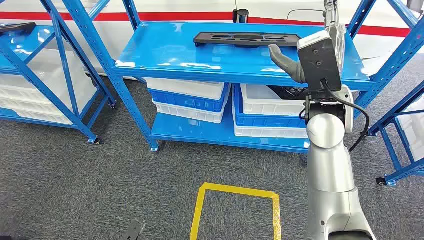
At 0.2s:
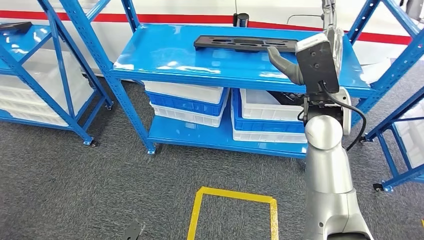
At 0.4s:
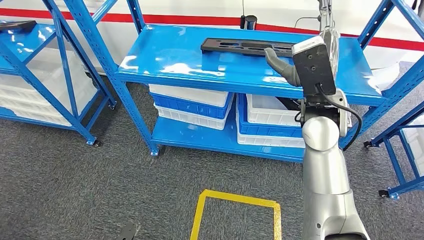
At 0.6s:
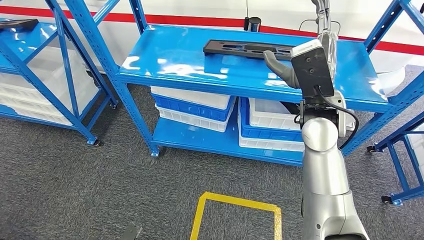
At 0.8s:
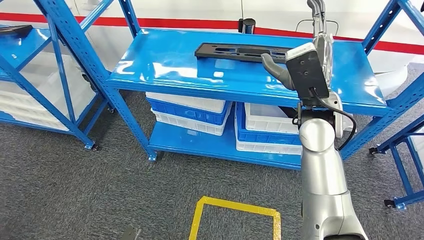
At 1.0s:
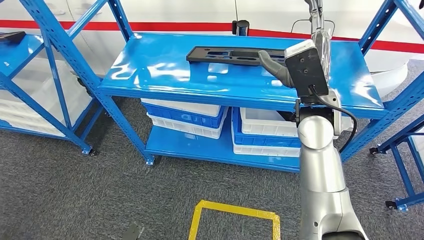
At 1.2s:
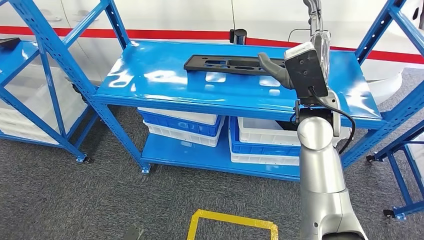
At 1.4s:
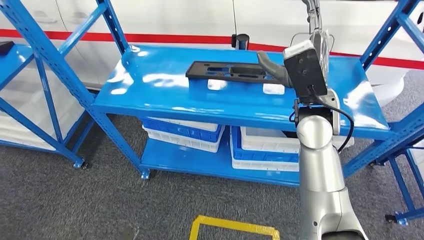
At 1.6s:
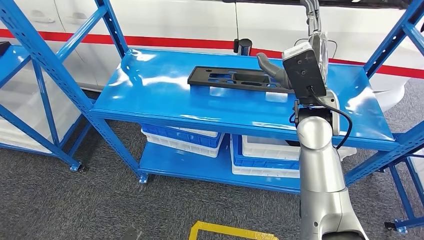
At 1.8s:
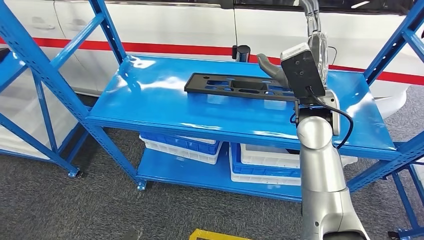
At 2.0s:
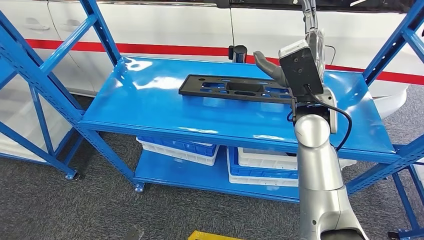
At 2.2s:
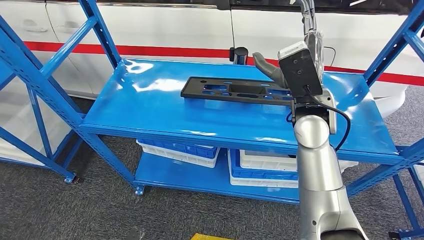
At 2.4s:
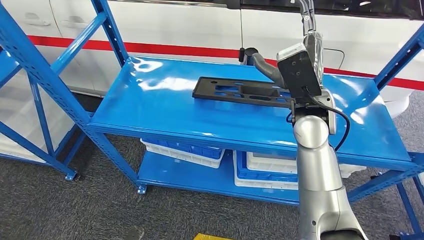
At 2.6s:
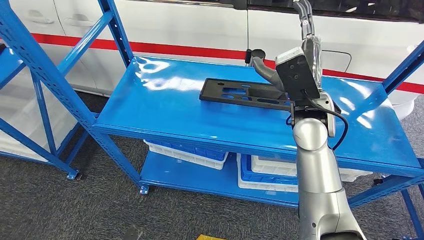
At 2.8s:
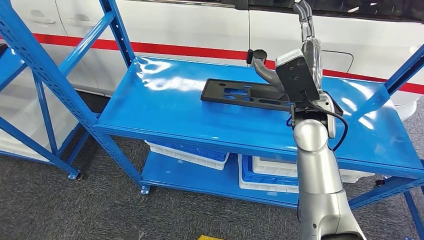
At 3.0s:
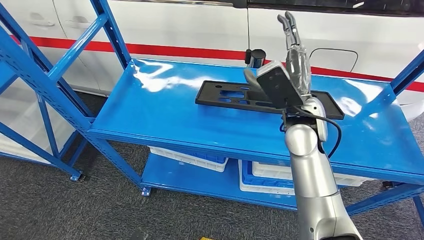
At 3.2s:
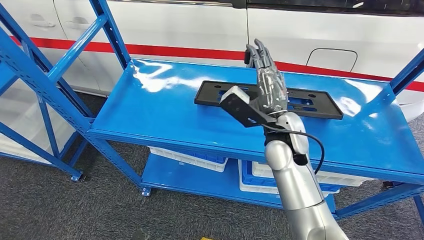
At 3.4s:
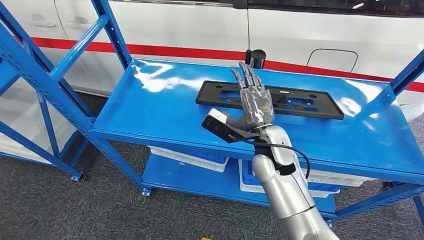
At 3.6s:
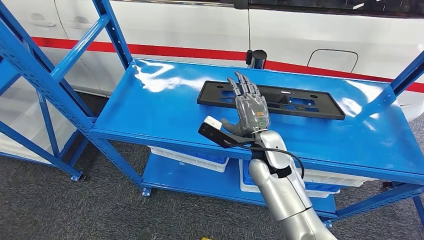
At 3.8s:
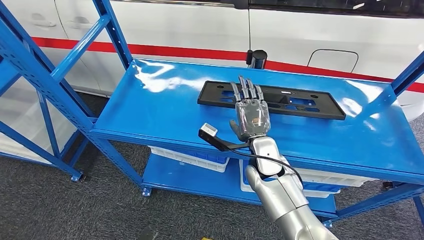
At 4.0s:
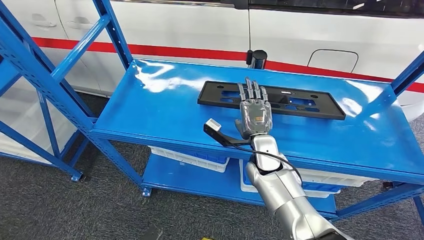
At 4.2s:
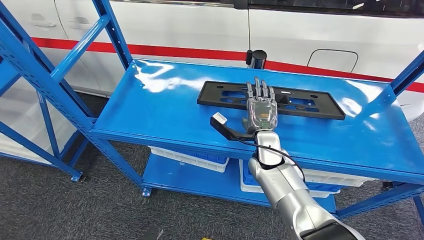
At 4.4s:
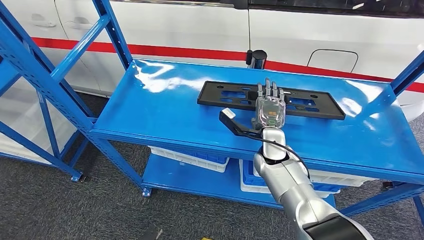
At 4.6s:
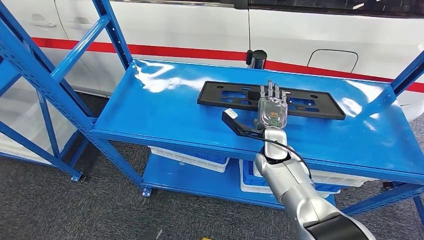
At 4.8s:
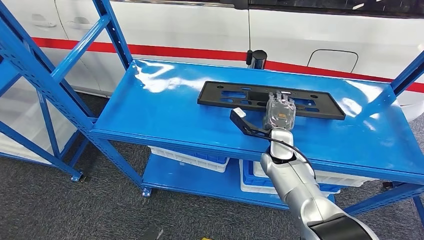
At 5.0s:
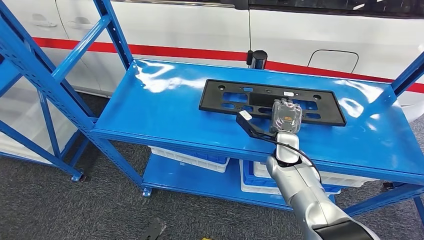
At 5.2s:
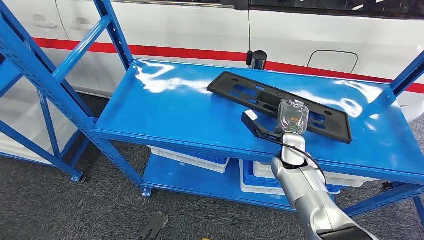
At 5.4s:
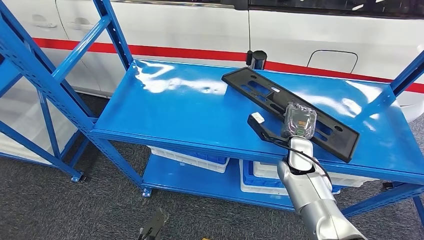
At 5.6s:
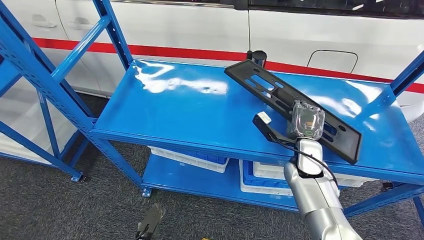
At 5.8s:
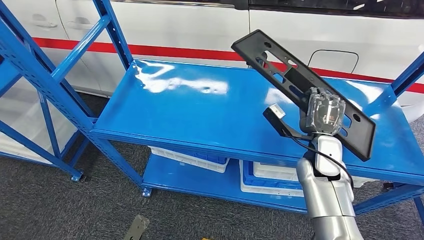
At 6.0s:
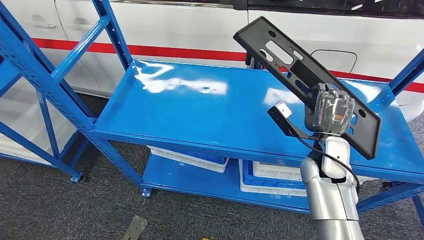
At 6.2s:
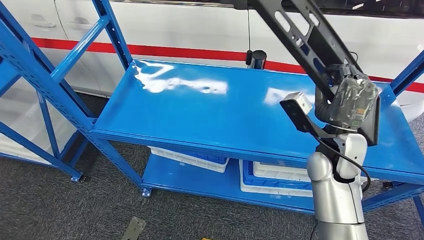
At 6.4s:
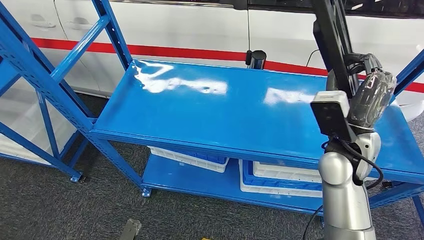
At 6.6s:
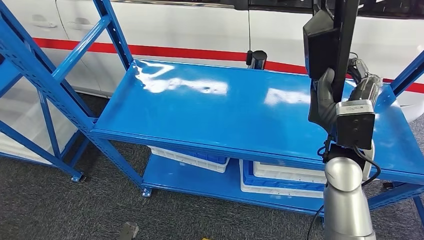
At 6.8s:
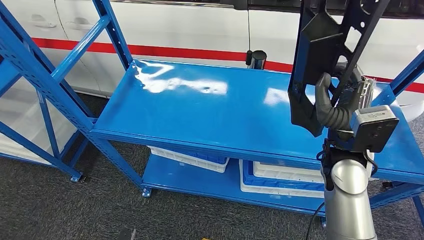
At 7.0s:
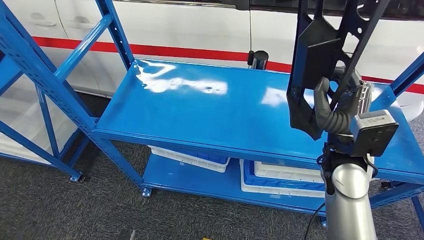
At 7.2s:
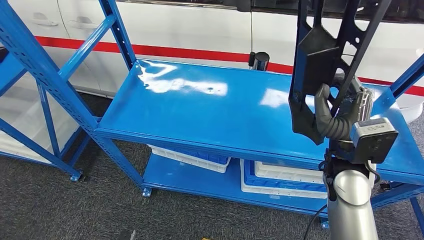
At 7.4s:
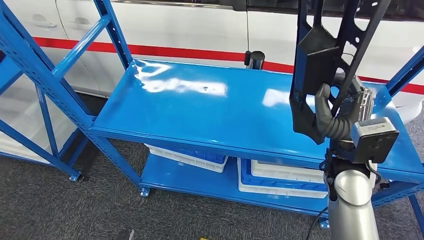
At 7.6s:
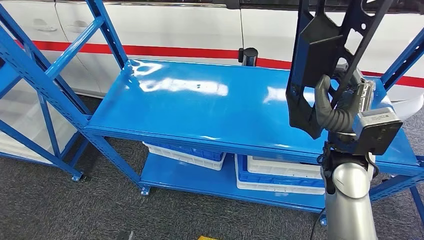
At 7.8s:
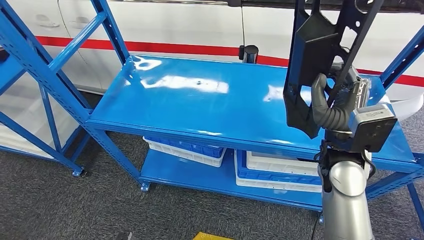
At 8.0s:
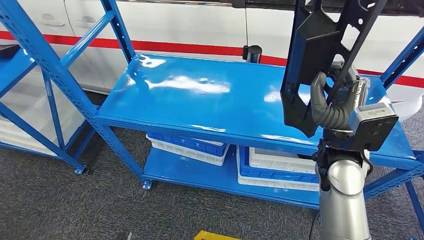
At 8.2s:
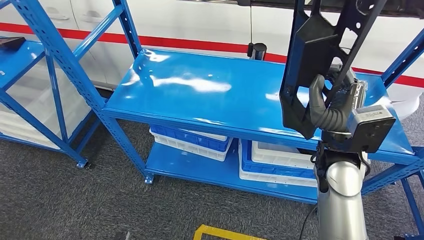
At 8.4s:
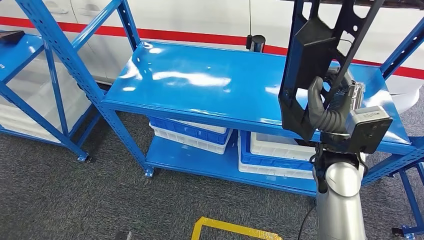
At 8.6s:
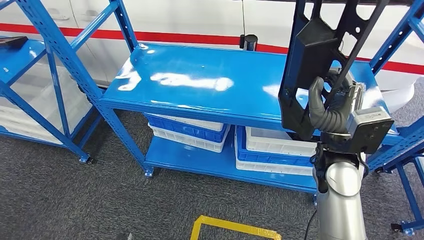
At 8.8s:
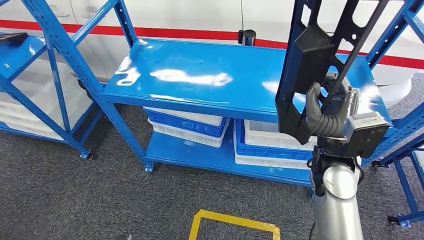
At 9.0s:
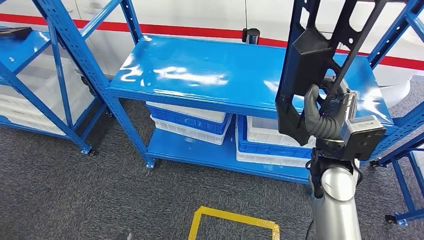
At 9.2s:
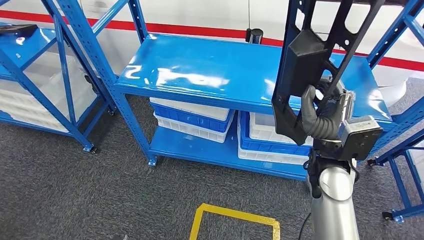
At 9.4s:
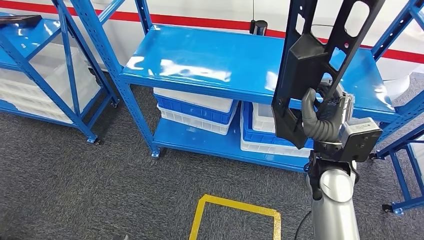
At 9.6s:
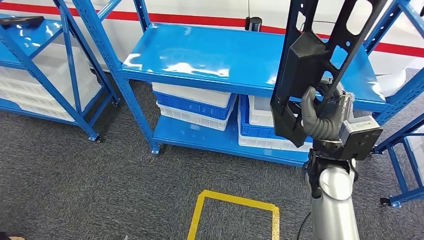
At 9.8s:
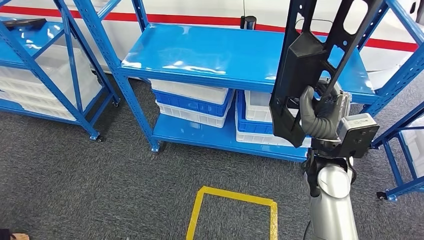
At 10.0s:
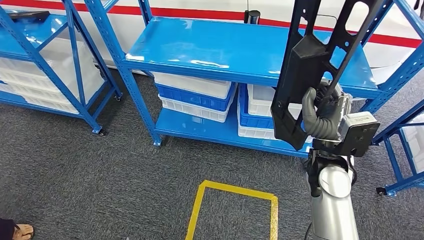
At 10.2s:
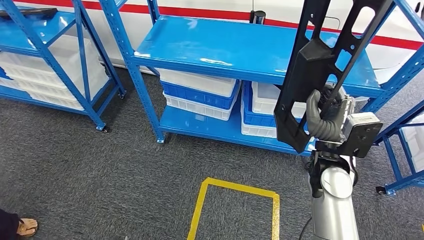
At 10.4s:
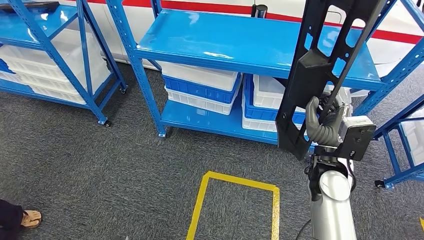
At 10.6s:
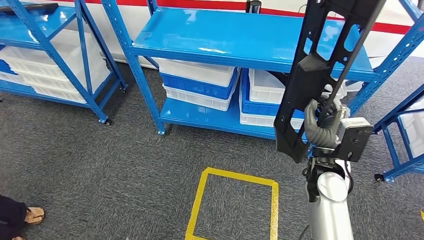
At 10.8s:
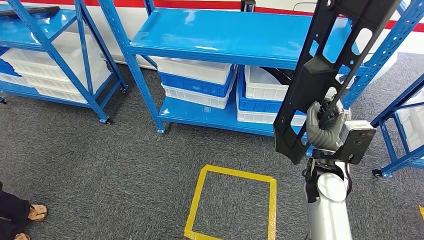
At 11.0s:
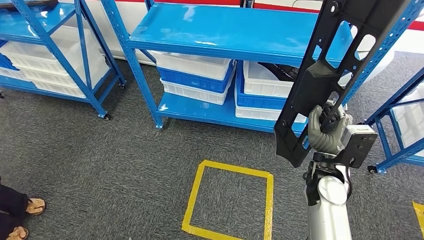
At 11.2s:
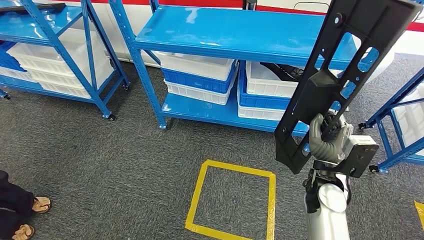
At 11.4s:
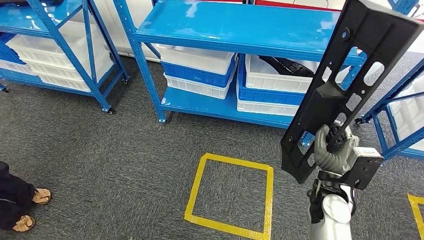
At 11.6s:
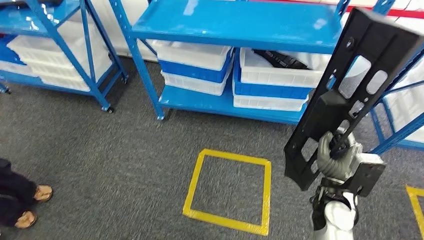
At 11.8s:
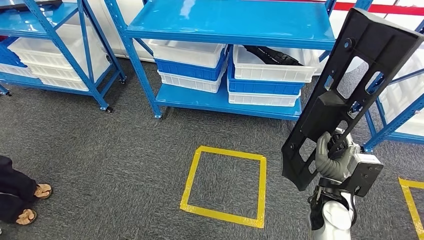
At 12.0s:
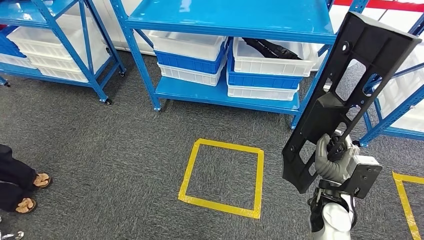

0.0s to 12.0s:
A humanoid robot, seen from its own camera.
Step, 0.0s to 10.2s: Pick up the large material from the shelf.
3.0s to 4.4s: The right hand is displaced downward by roughly 15 cm. Meanwhile the left hand is displaced to the right by roughly 5 cm.

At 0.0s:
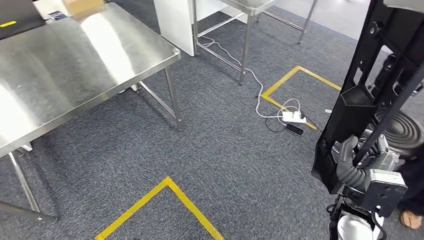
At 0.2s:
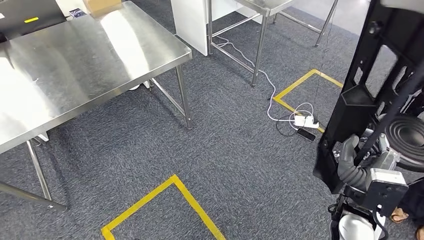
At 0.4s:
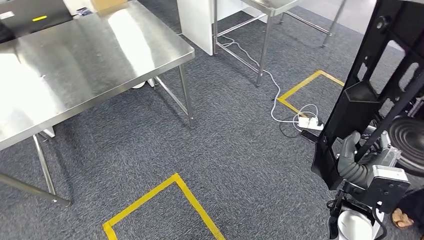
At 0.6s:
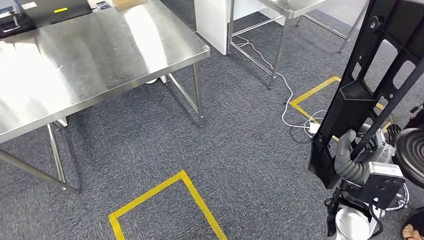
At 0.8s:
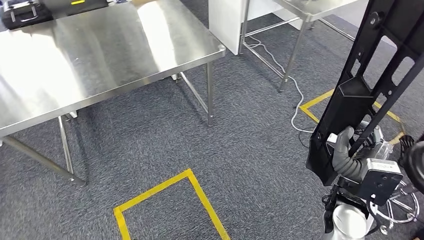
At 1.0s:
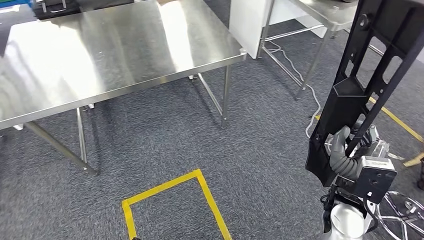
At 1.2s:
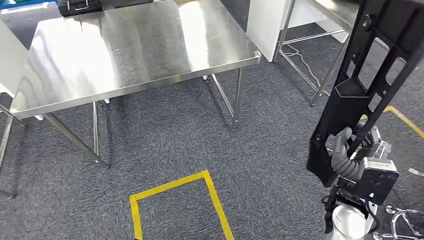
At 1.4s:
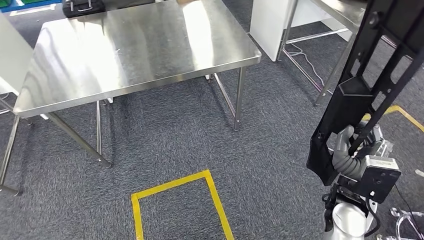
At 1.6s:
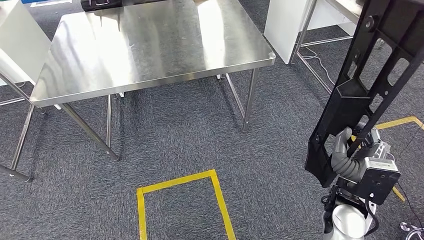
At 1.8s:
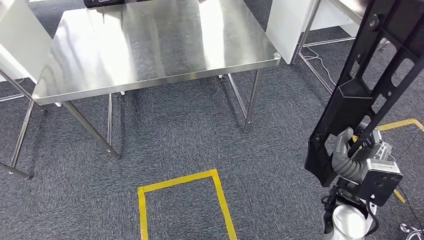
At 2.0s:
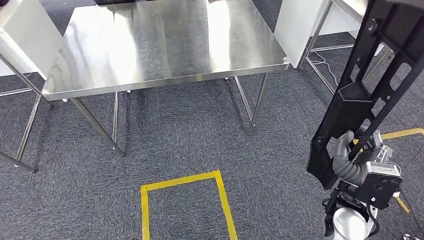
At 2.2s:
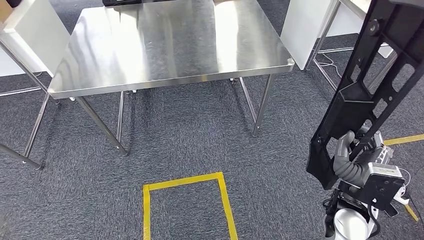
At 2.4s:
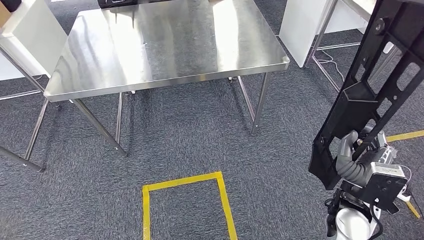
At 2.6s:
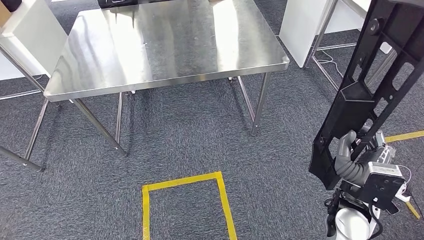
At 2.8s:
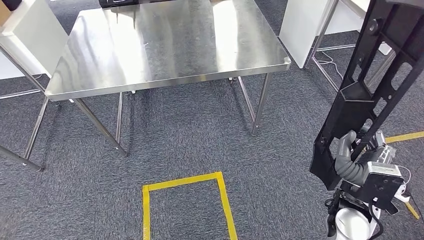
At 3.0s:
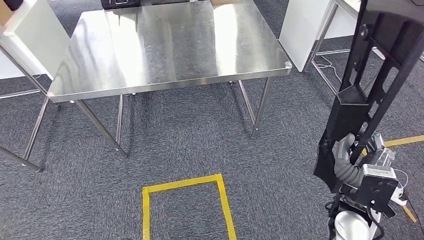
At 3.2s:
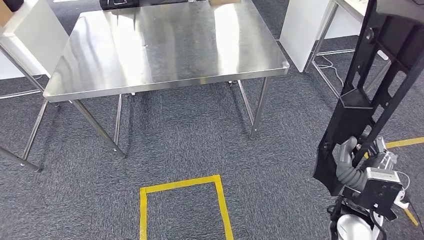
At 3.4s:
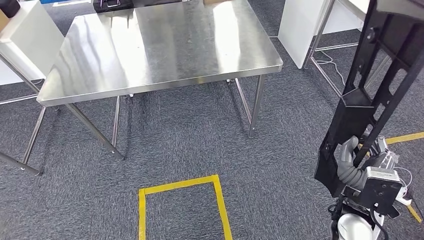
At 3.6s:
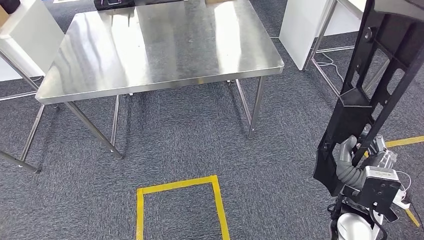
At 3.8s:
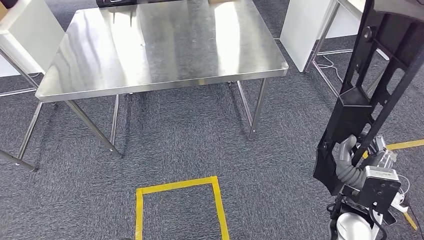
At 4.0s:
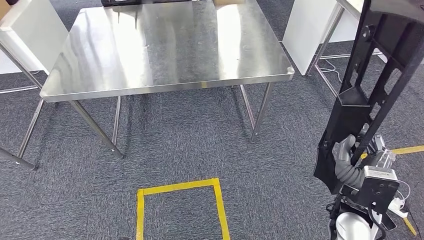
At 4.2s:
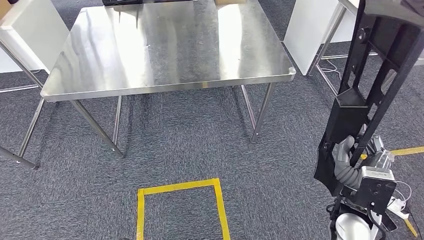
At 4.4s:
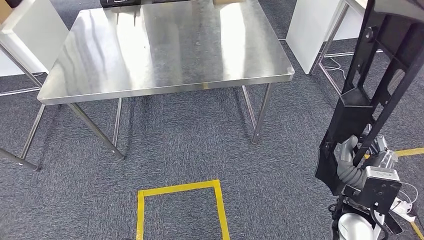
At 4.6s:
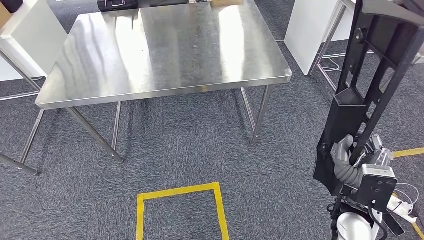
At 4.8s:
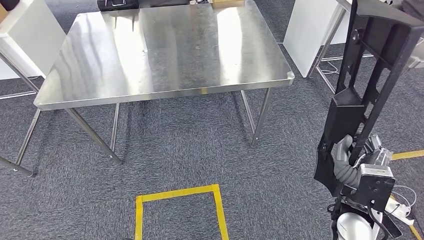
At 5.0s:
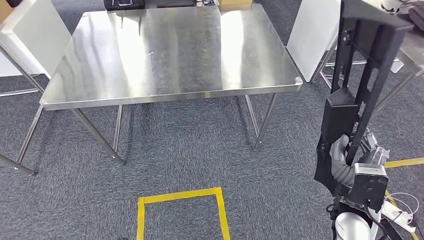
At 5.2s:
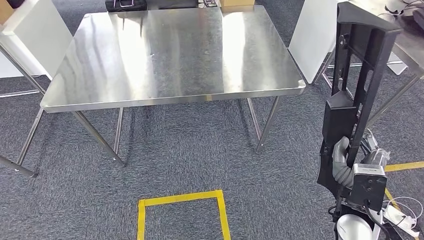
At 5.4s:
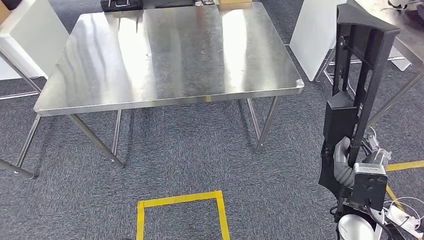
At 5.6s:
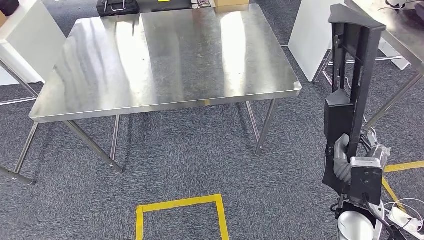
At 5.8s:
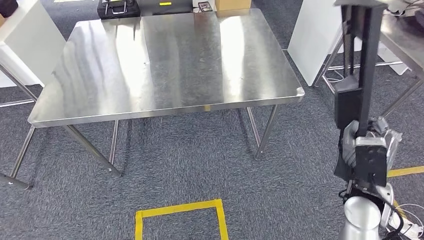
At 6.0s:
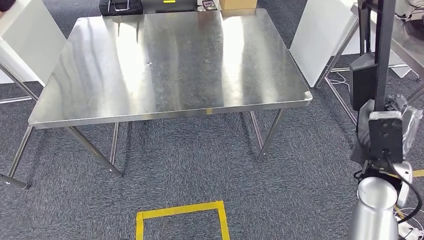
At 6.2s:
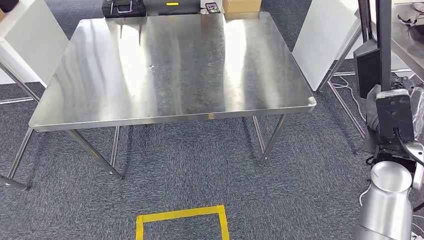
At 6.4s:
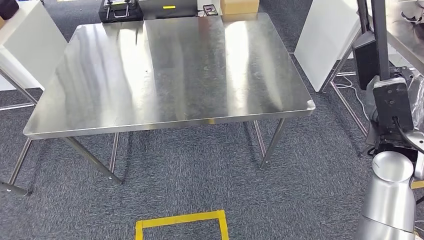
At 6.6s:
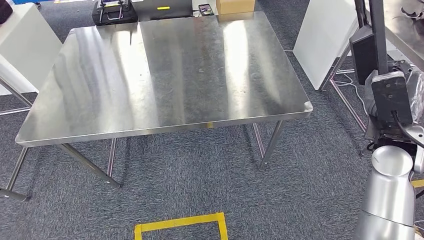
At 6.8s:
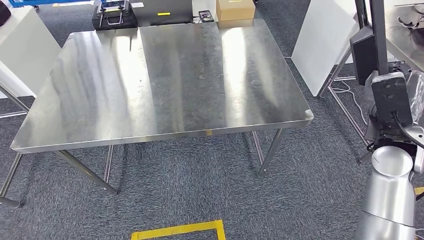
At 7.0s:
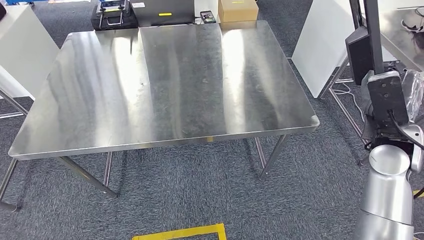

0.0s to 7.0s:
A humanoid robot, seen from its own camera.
Step, 0.0s to 6.0s: Move the large material to the workbench.
